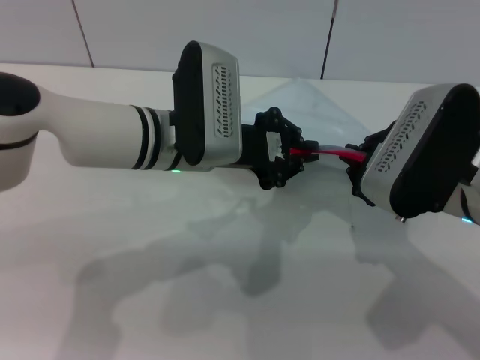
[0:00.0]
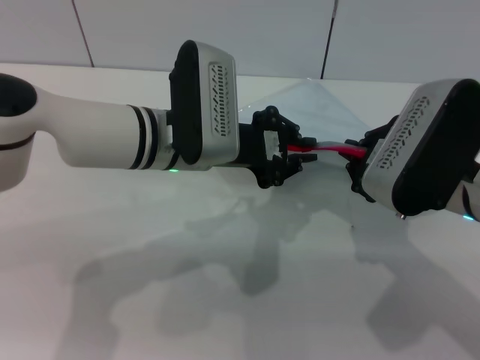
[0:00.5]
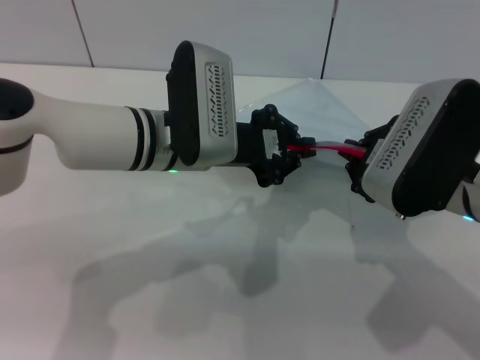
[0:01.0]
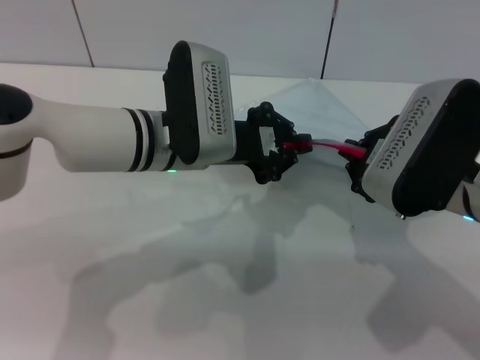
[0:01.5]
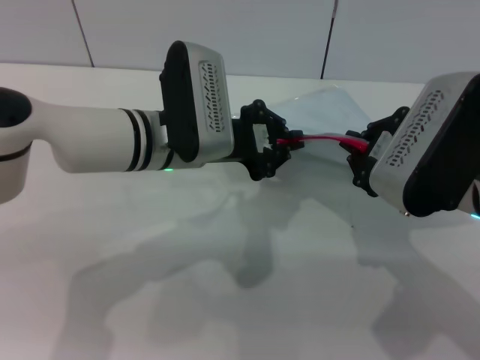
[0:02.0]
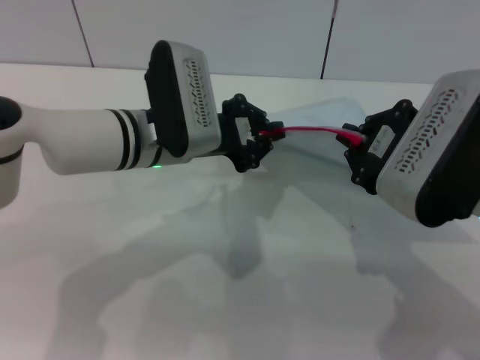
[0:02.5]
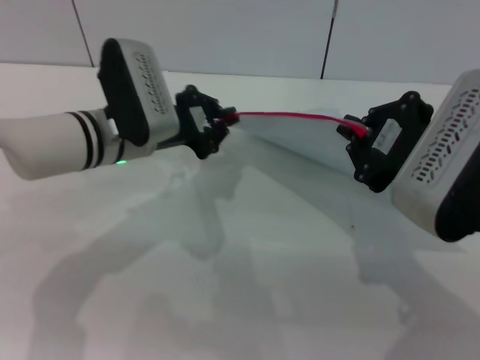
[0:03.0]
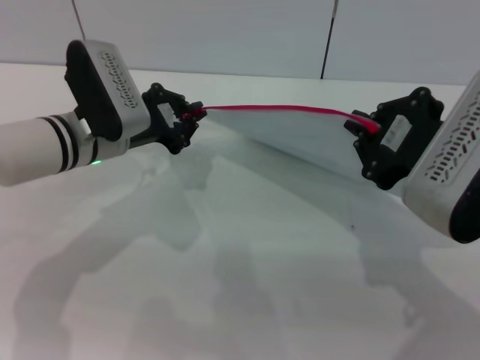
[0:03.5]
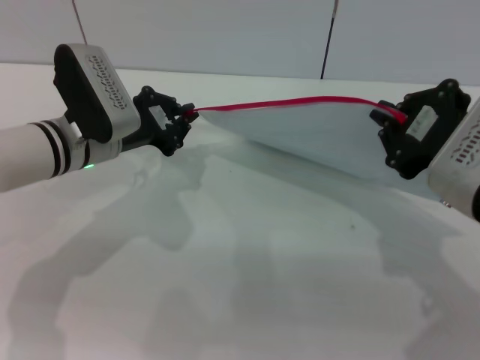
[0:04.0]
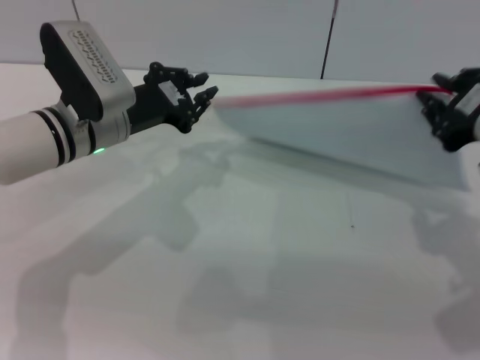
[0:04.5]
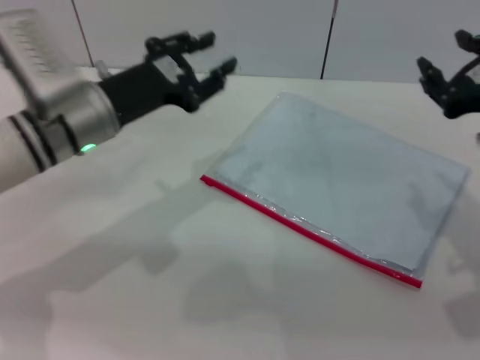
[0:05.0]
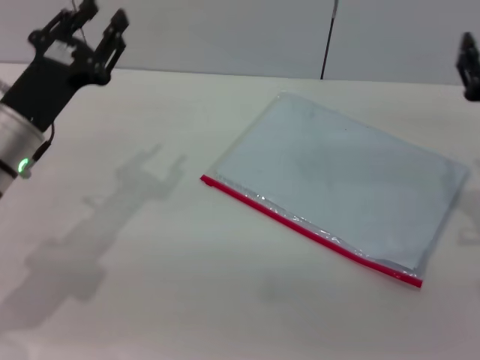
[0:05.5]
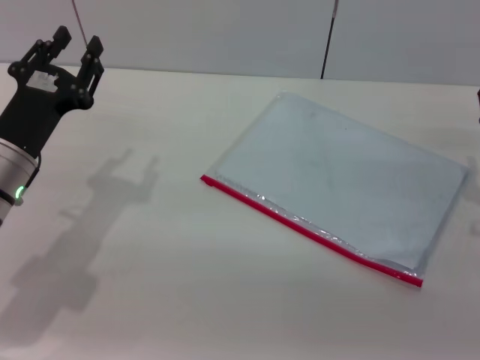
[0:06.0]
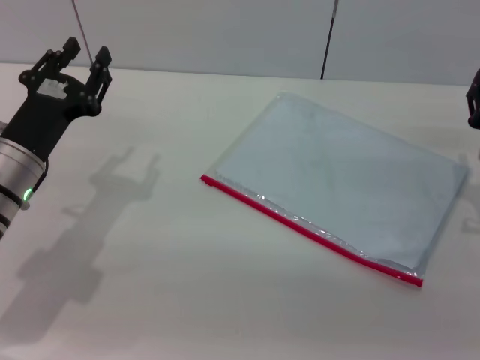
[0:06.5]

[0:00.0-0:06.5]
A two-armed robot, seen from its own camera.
Step, 0:00.0 to 0:04.5: Pulling up the zipper on the transparent plastic bag with the left gripper to close it.
Step, 0:05.0 to 0:05.5: Place the transparent plastic bag.
0:00.0 to 0:02.0: The grippers move only a little.
0:02.0 to 0:04.5: The left gripper moves to the left, roughly 10 cm. Meanwhile the right gripper shifts approximately 5 cm to the right.
0:04.5 to 0:06.5: The left gripper travels backward and to the left by approximately 10 cm, and opens; the right gripper is displaced downward by roughly 15 cm, and opens its fingers.
